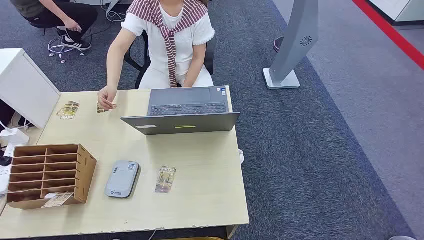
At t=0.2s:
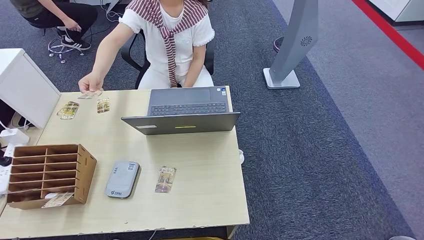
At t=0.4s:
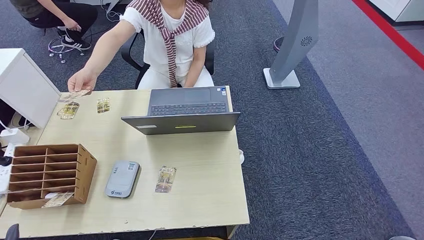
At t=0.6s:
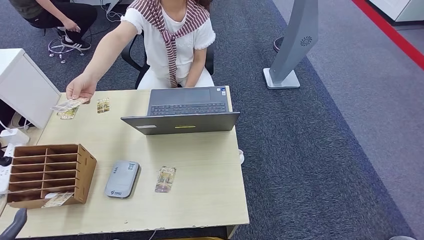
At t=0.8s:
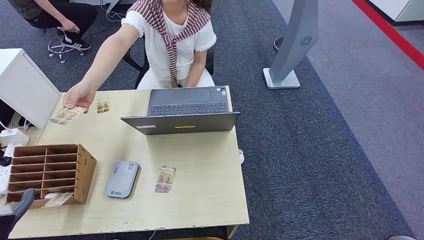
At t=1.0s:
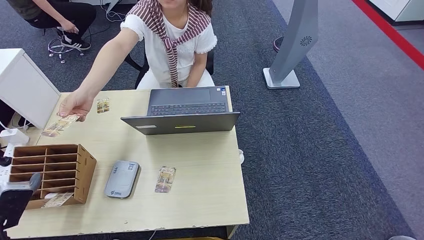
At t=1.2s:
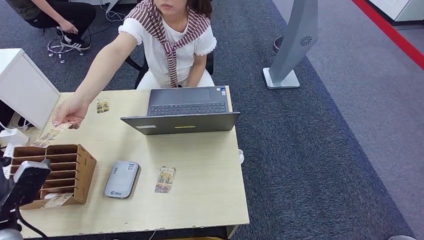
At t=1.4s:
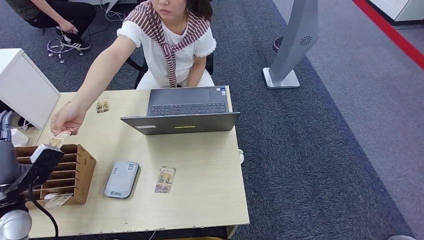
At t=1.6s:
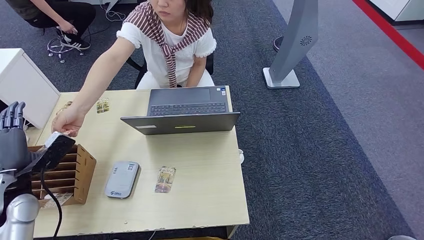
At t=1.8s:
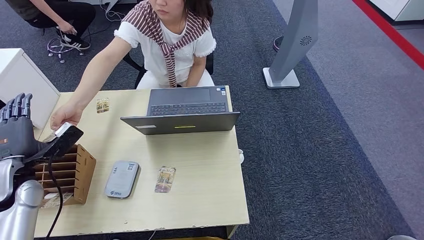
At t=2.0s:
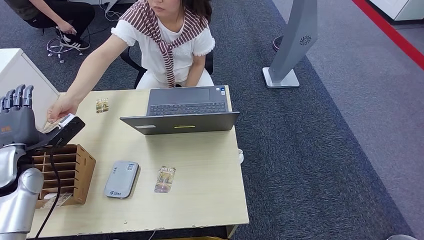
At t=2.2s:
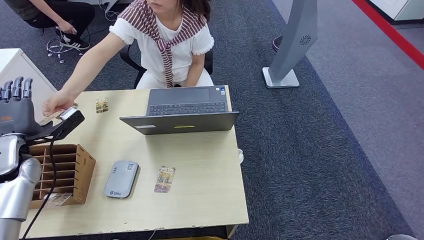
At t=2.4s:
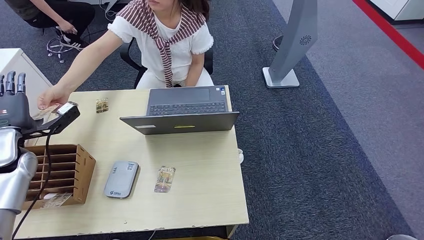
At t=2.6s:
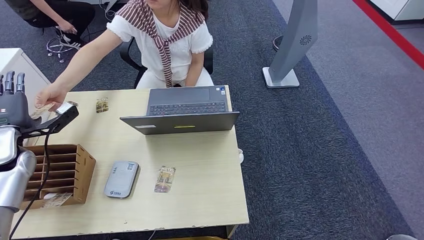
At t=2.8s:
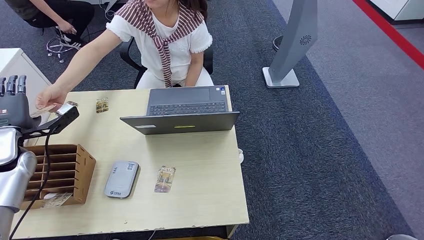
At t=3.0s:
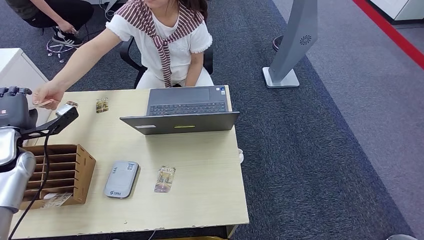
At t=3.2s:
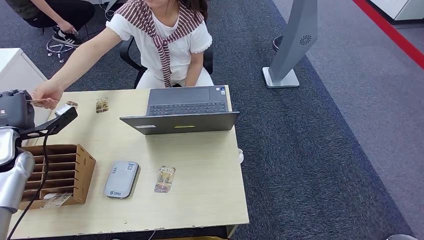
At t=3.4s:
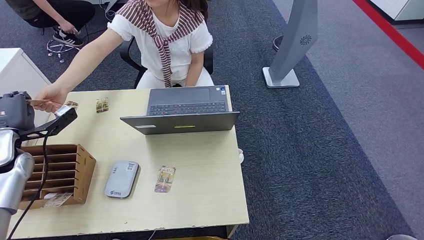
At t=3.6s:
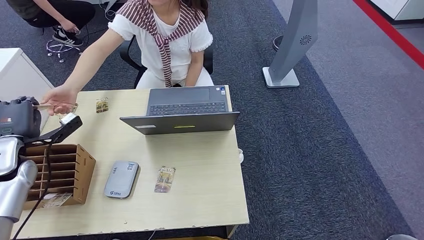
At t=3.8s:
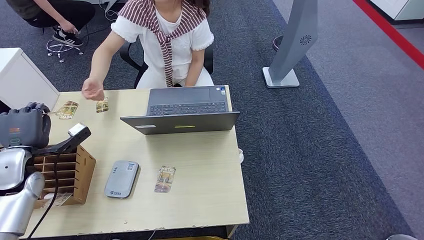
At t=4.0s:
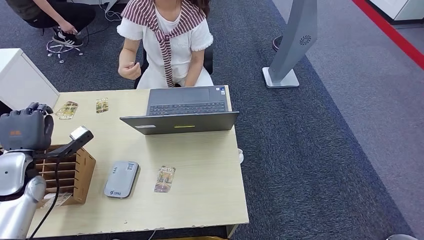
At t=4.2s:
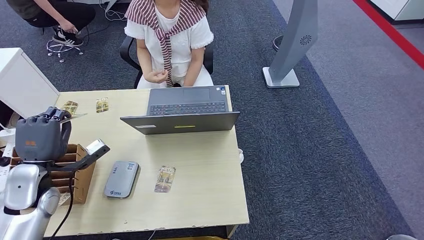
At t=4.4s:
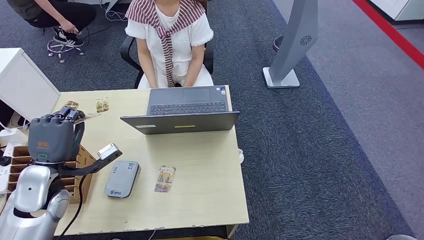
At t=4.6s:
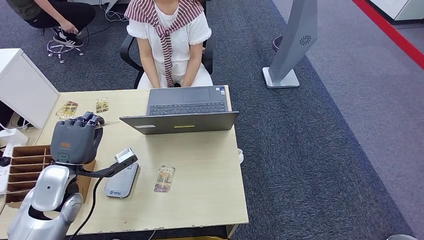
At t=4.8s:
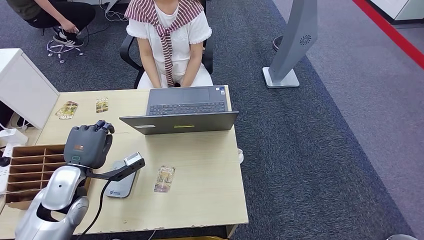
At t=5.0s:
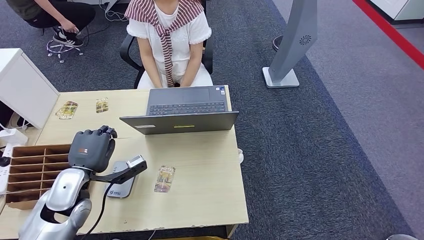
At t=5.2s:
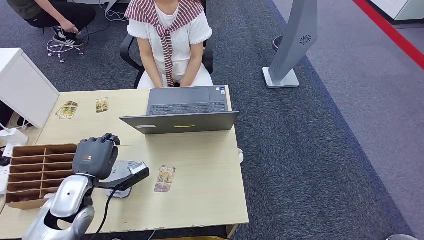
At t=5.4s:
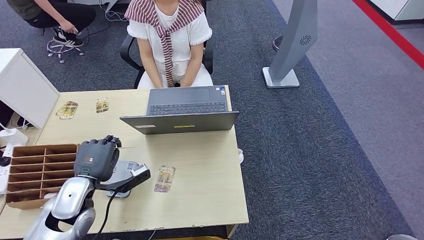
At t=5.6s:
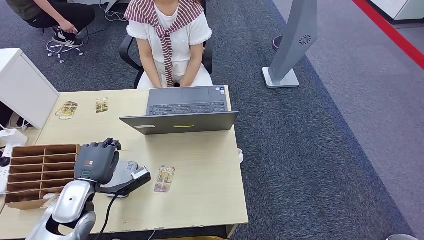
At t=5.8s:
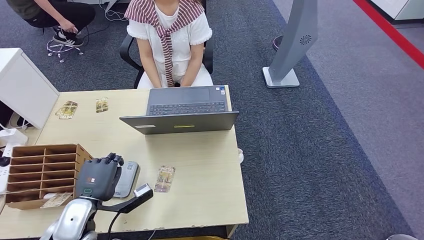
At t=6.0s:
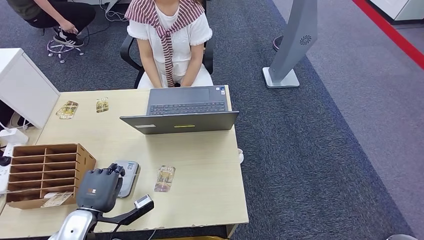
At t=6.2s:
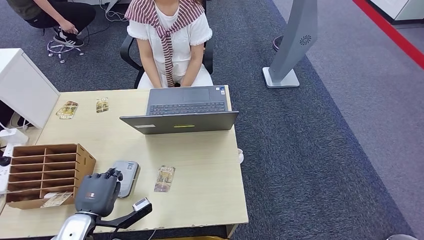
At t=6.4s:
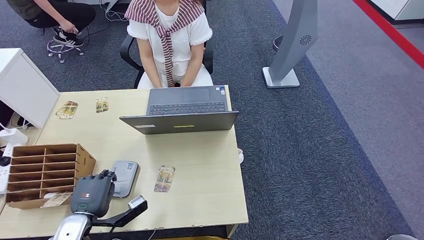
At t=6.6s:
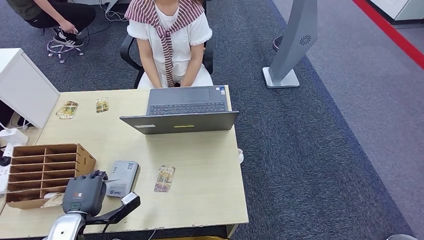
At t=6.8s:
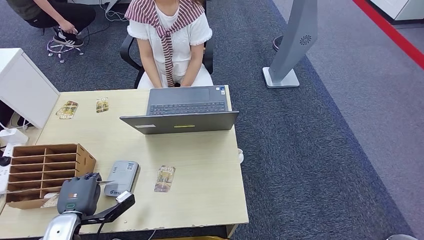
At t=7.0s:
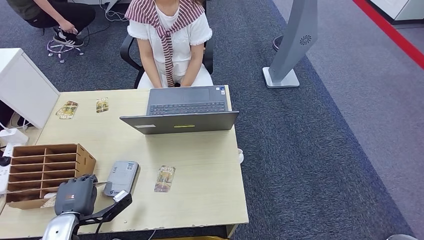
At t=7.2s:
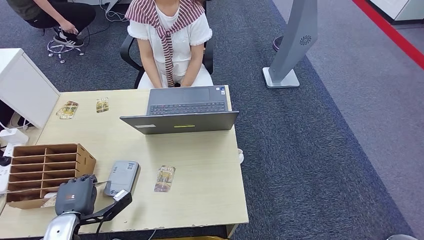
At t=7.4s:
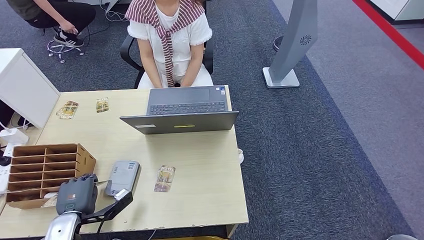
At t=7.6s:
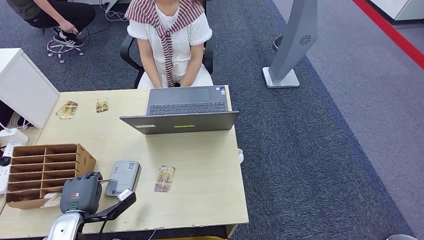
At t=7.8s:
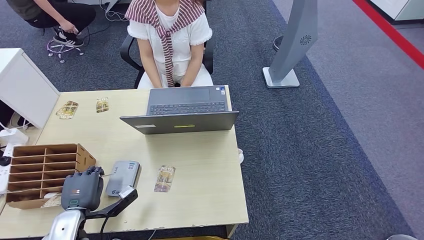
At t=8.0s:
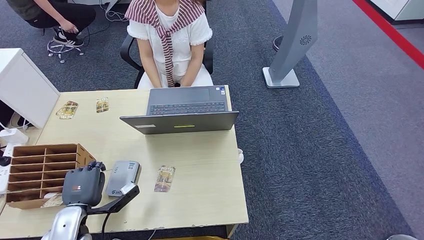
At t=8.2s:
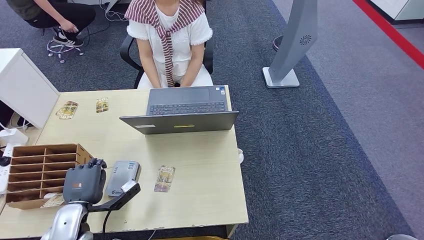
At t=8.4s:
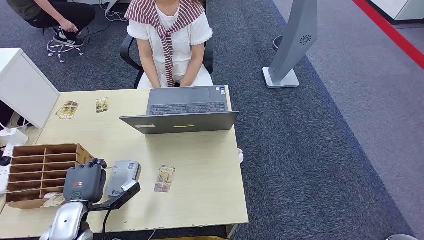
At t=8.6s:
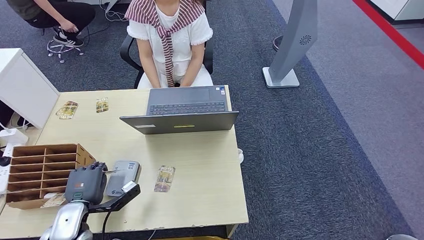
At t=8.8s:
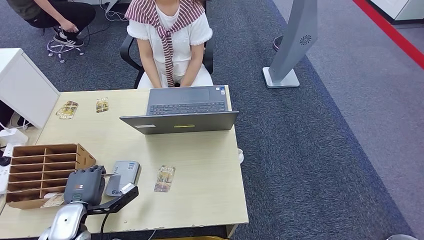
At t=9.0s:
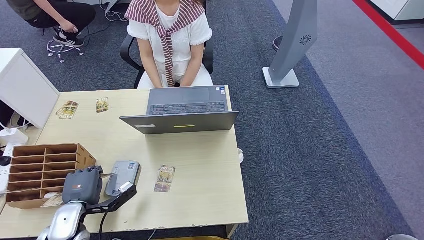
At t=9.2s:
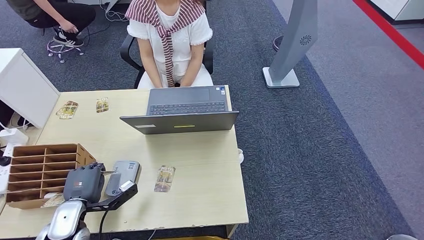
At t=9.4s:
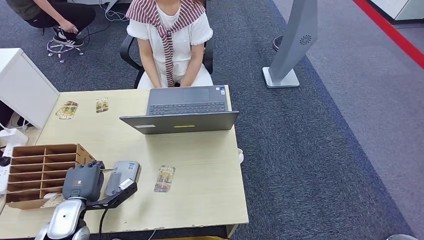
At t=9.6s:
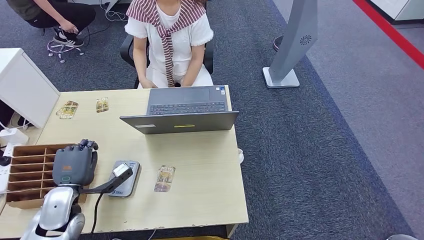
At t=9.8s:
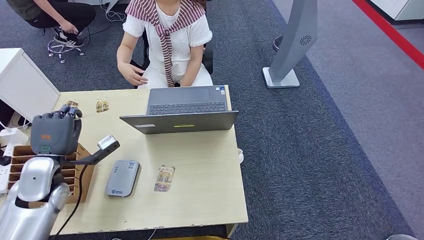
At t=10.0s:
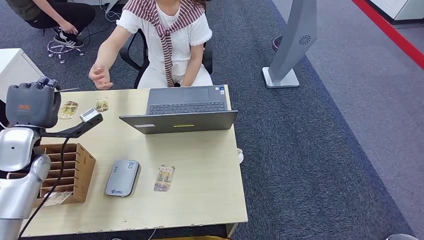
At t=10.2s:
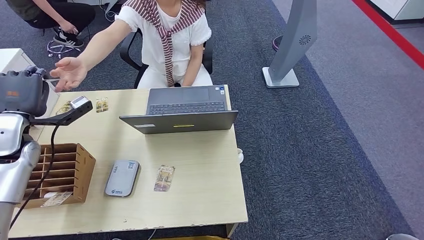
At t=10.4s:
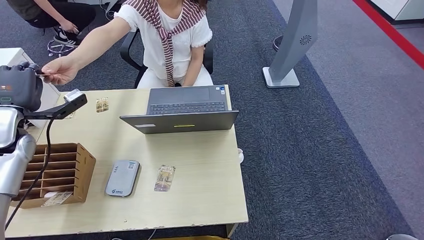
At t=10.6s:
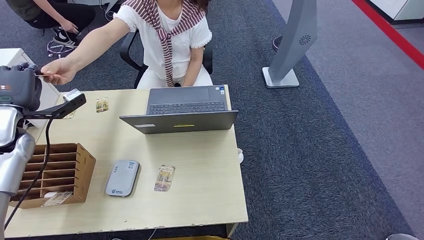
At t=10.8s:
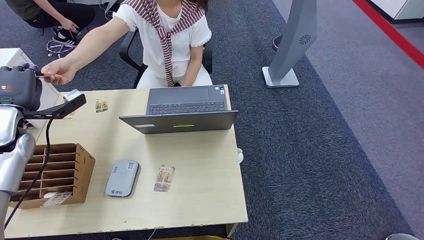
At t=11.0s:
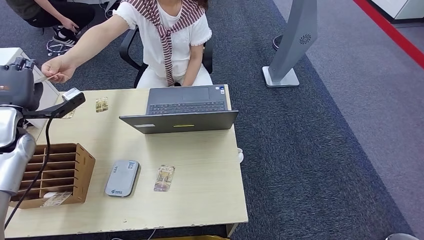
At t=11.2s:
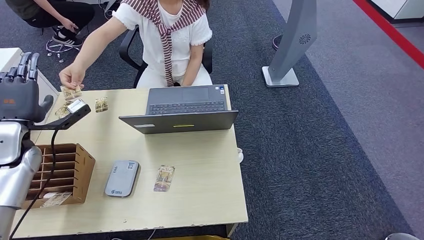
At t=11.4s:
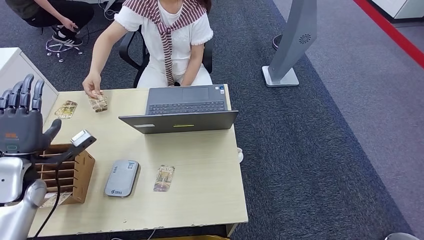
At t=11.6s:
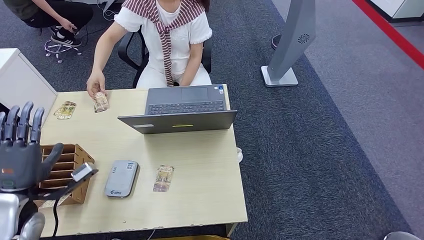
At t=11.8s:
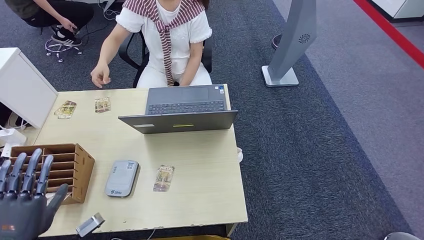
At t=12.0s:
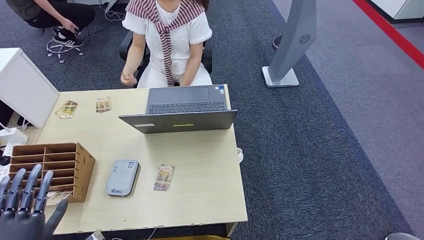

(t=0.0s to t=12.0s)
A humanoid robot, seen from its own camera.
Step, t=0.0s - t=3.8s: Take the ID card from the person's hand.
Step, t=4.8s - t=7.8s: Place the ID card on the card reader.
Step, t=8.0s - t=10.8s: Hand the ID card to the person.
t=1.6s - t=3.0s: The left hand goes approximately 10 cm forward.
t=3.0s - t=4.4s: The left hand travels to the right and backward by some 15 cm.
t=4.4s - t=6.0s: The left hand goes approximately 15 cm backward, downward and to the right.
t=6.0s - t=7.6s: The left hand ends up roughly 5 cm from where it was.
t=7.6s - t=9.0s: There are only small adjustments of the hands.
t=9.0s - t=10.4s: The left hand moves upward, forward and to the left, some 30 cm.
t=10.4s - t=12.0s: The left hand moves backward and downward, approximately 30 cm.

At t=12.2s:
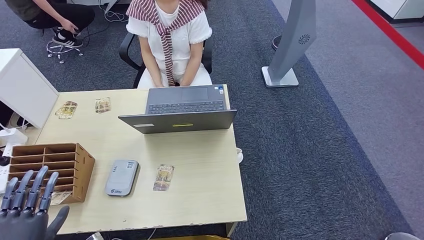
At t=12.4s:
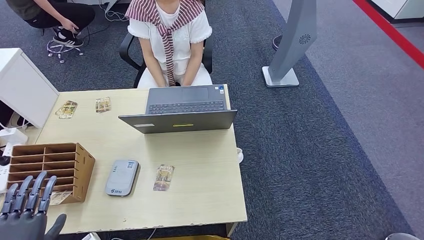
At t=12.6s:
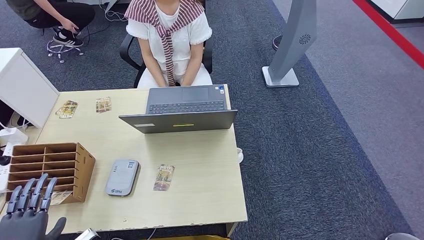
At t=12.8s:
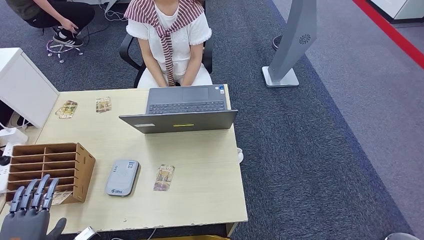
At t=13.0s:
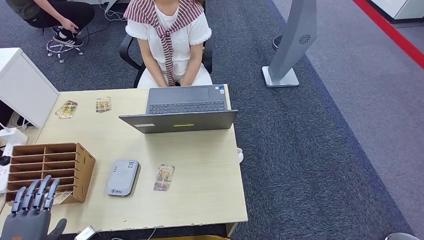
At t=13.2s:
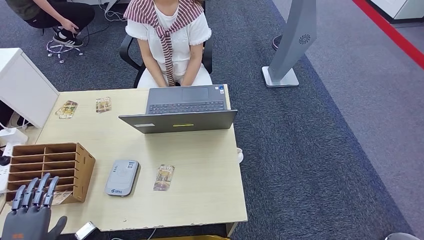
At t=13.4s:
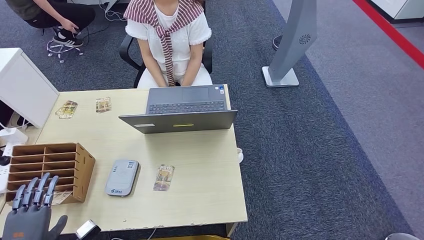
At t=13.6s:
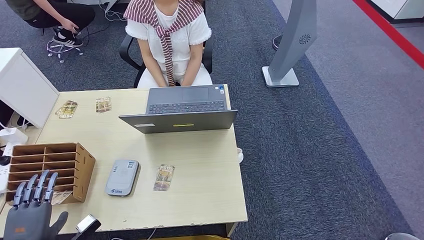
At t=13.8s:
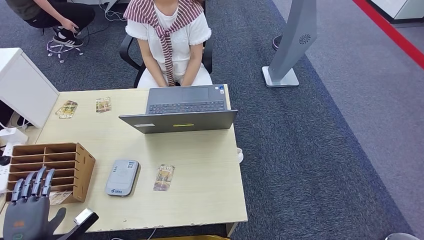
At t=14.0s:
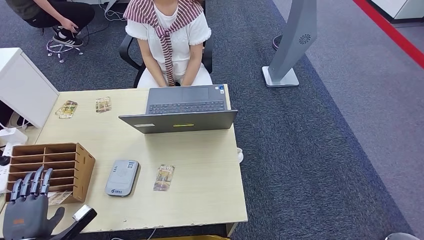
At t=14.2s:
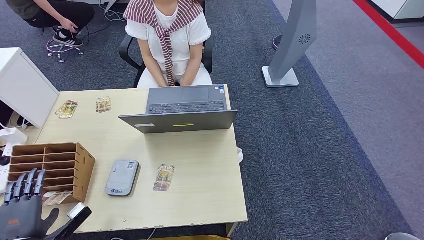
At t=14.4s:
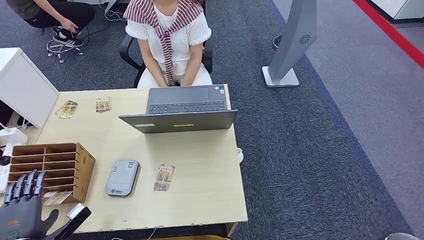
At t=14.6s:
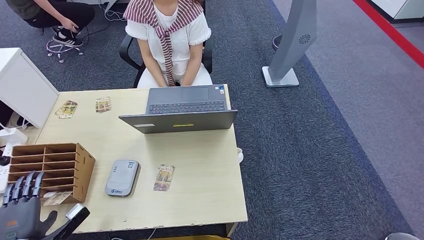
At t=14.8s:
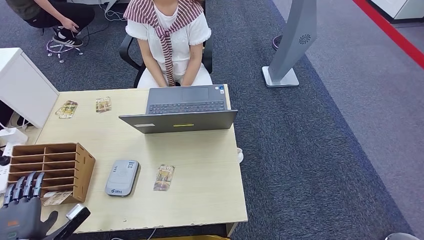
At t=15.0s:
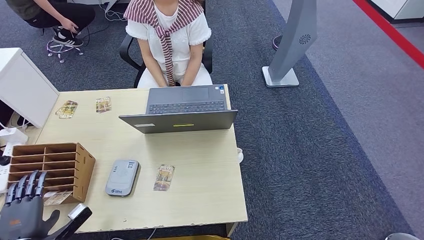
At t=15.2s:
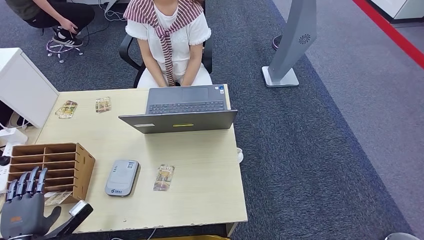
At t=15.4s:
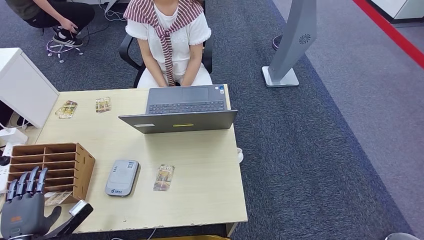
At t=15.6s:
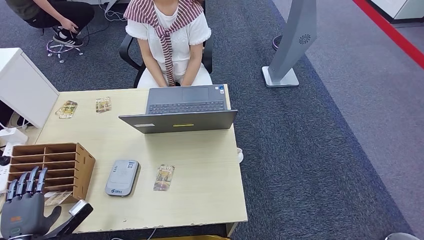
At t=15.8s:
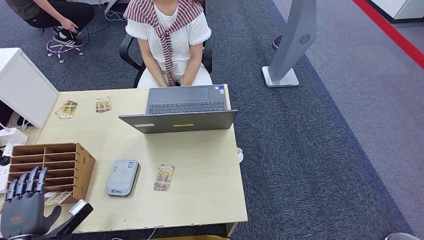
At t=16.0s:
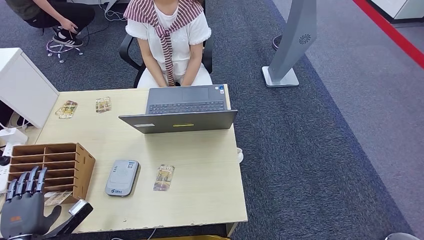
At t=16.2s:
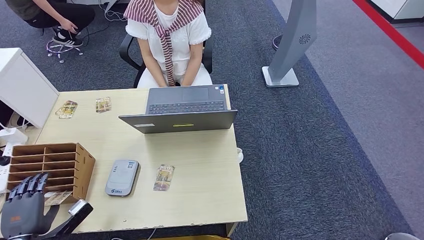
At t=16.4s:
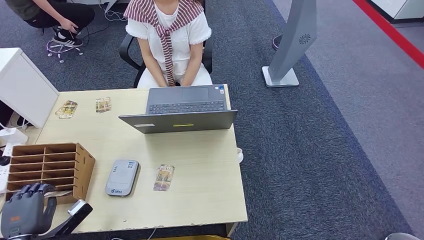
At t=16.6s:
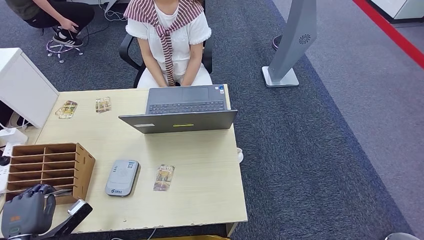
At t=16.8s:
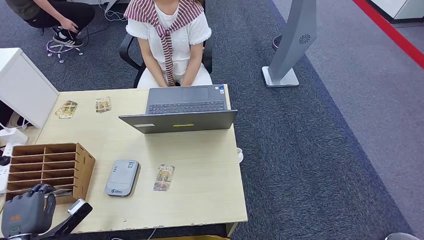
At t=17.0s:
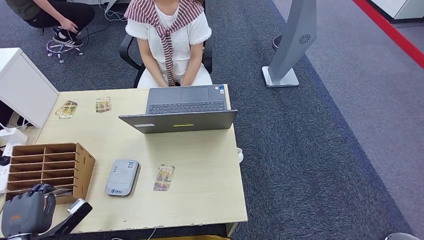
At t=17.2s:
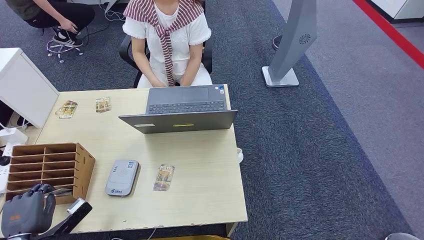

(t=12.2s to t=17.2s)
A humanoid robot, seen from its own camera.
t=12.2s - t=13.8s: The left hand goes some 5 cm downward.
t=13.8s - t=15.6s: The hands move only a little.
t=15.6s - t=17.2s: The two hands keep their place.
